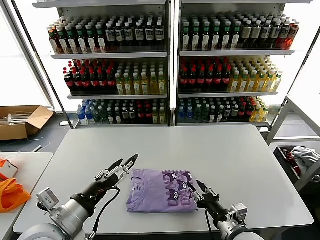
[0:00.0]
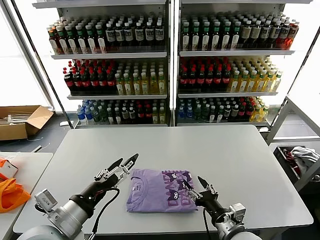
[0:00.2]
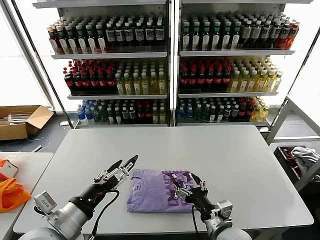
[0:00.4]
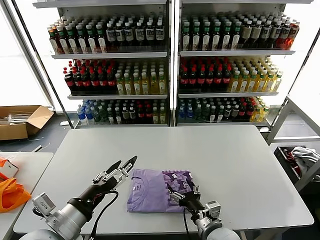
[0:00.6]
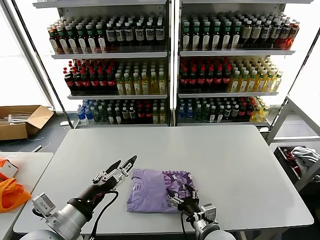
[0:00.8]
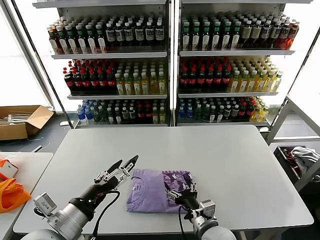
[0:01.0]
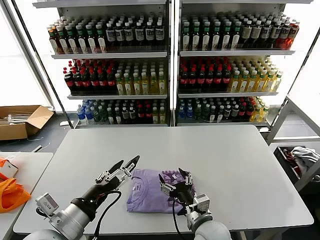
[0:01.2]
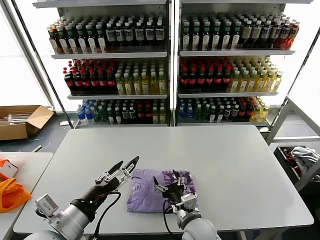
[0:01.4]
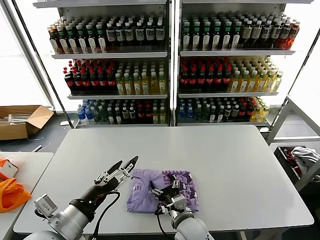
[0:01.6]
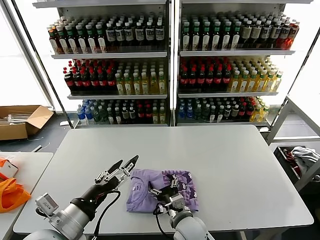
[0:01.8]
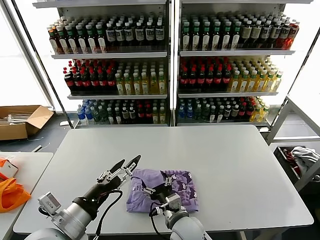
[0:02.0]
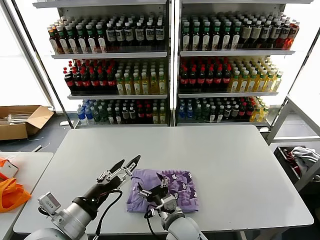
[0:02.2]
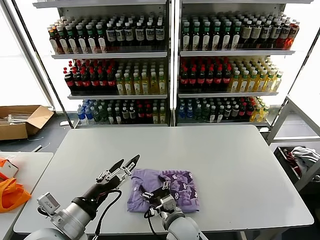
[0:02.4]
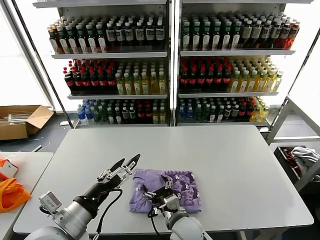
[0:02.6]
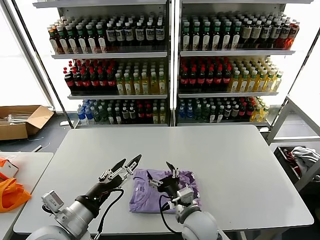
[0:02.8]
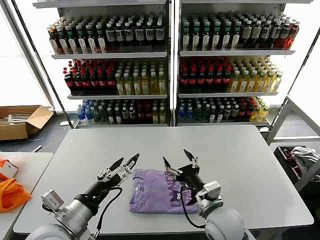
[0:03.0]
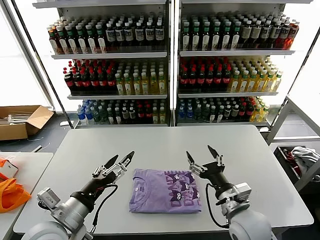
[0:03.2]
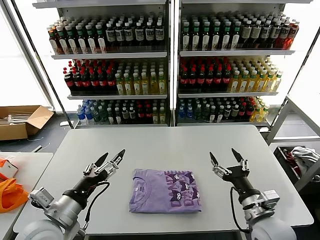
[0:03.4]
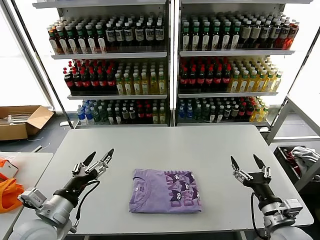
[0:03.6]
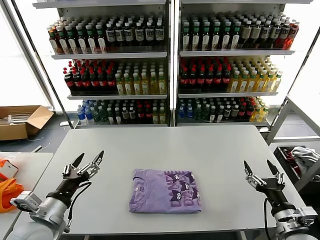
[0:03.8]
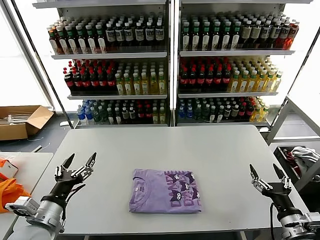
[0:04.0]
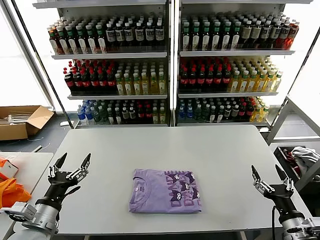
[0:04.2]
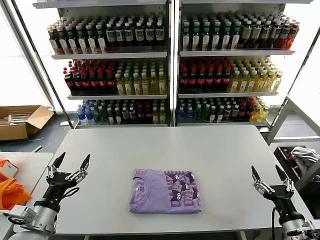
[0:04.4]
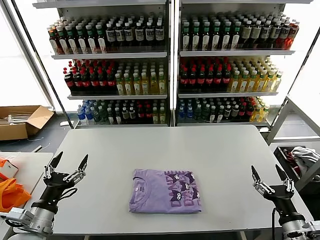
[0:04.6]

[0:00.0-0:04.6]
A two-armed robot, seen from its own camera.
Task of the whole recording: fold and organize the clothes.
Step, 0:00.0 to 0:02.6: Drag the clothes to the center of the table.
0:00.0 to 0:01.6: The right gripper moves to the left, approximately 15 cm, and opens.
0:01.6 to 0:03.0: The right gripper shifts roughly 10 cm upward.
0:03.0 to 0:04.6: The right gripper moves to the right, approximately 25 cm. Meanwhile the left gripper travels to the left and downward by approximately 10 cm.
